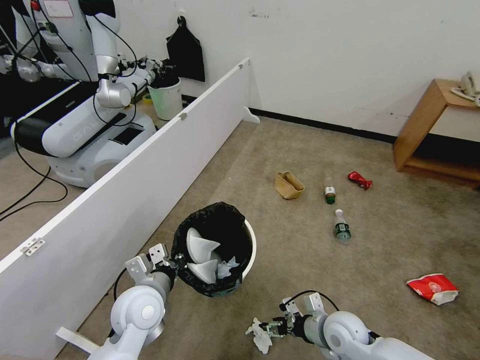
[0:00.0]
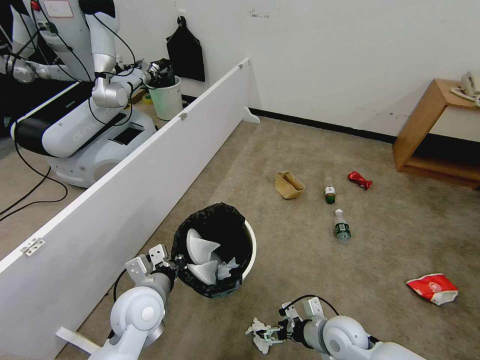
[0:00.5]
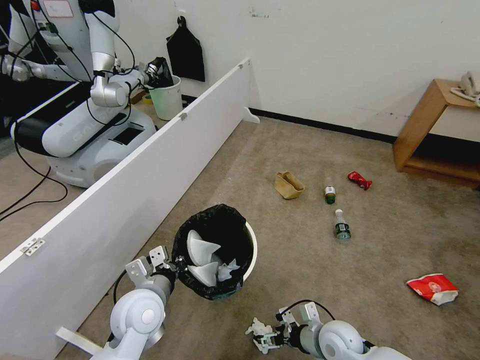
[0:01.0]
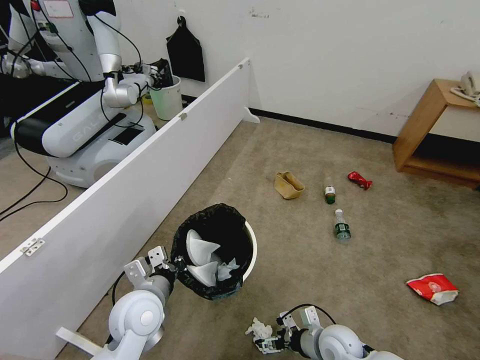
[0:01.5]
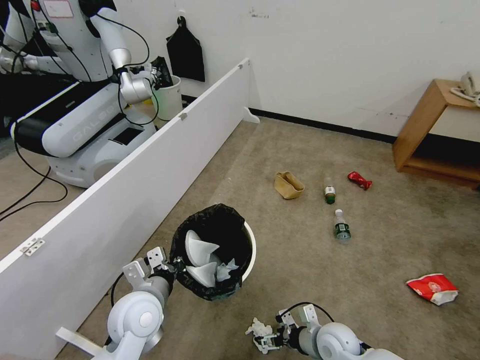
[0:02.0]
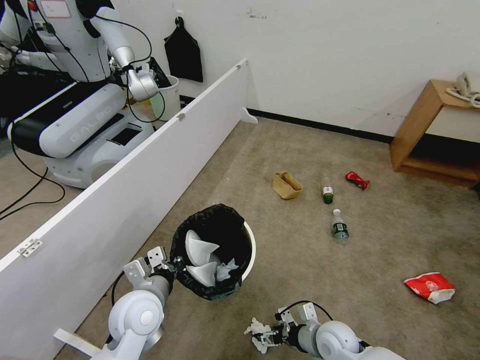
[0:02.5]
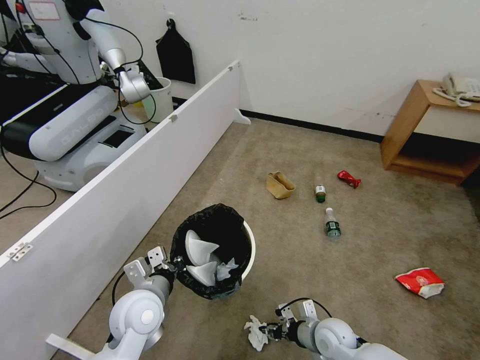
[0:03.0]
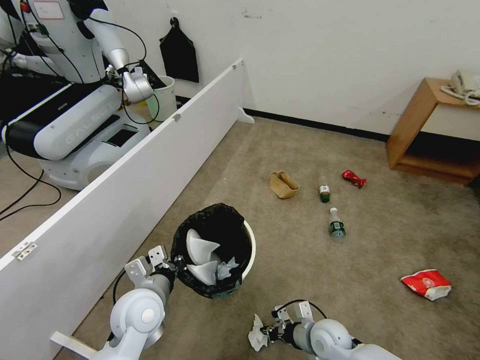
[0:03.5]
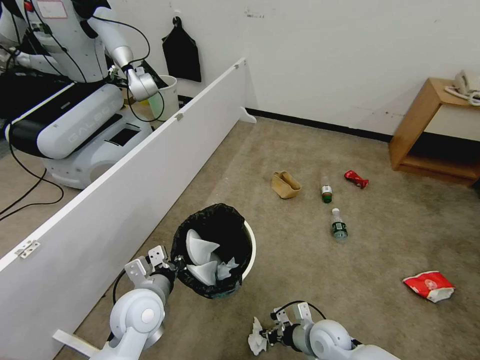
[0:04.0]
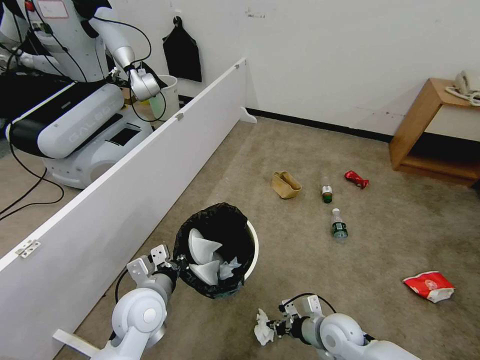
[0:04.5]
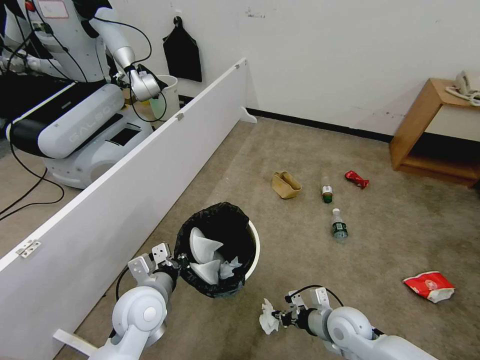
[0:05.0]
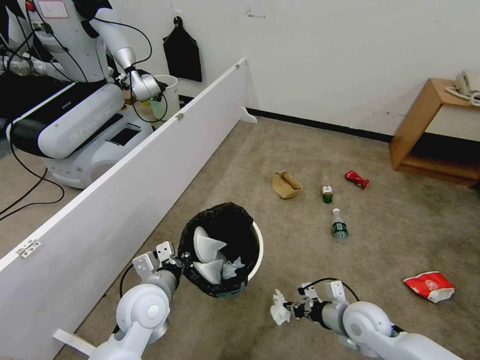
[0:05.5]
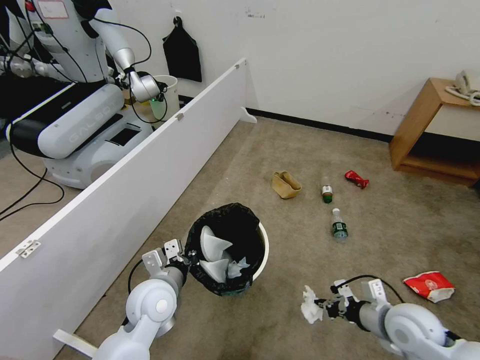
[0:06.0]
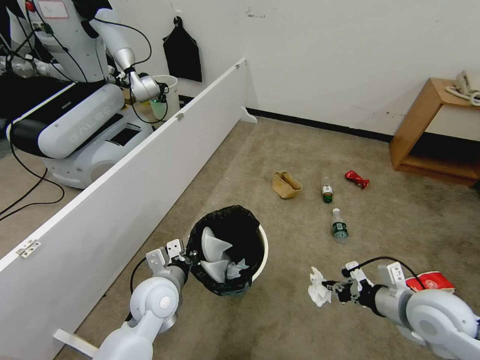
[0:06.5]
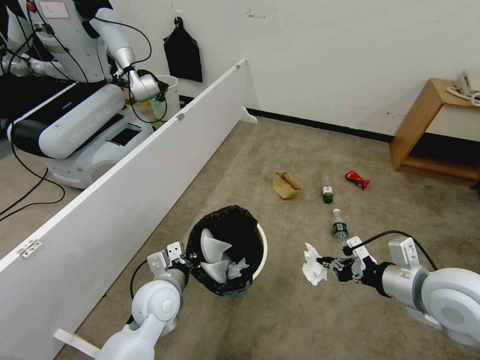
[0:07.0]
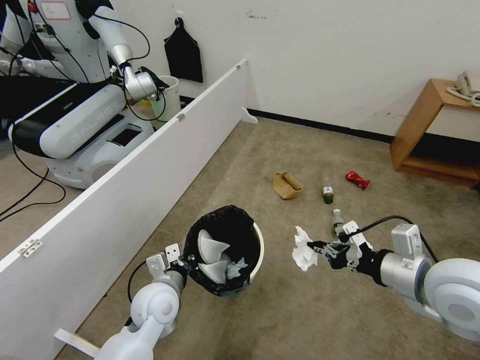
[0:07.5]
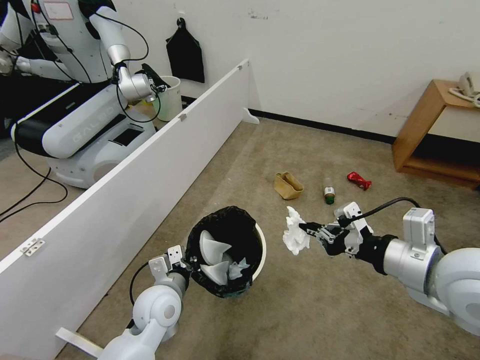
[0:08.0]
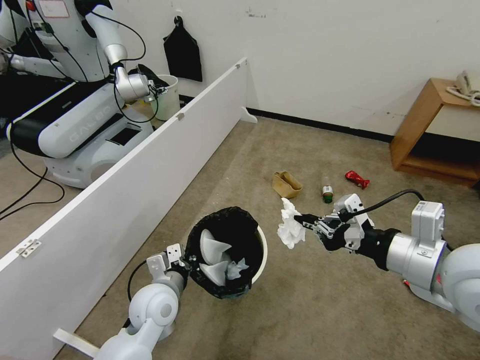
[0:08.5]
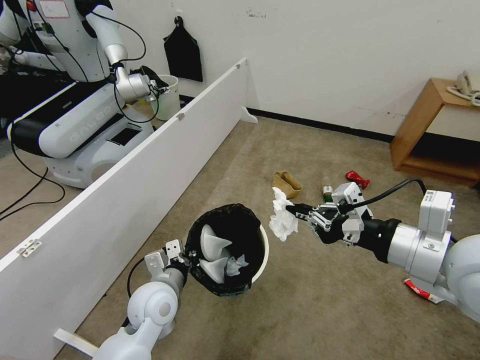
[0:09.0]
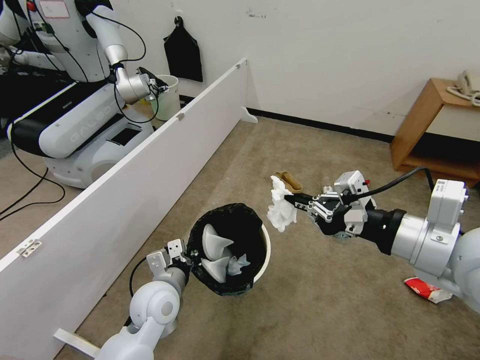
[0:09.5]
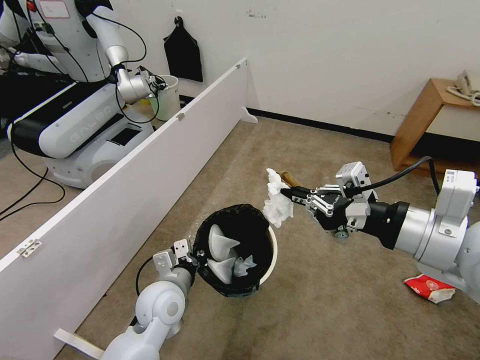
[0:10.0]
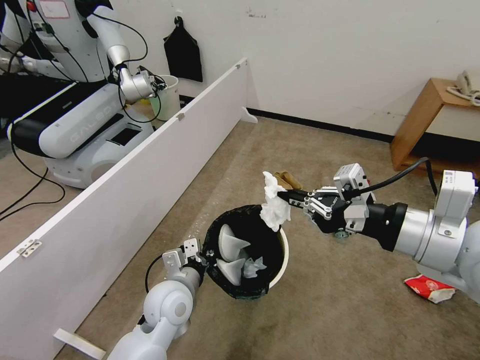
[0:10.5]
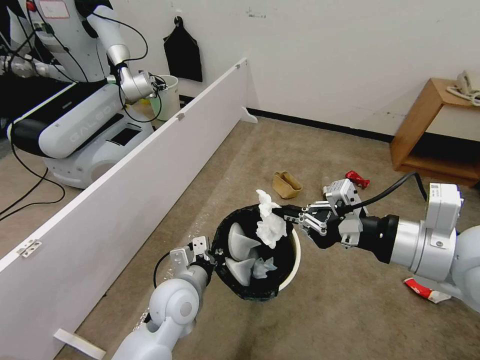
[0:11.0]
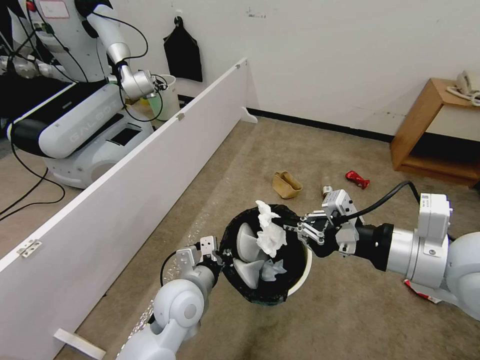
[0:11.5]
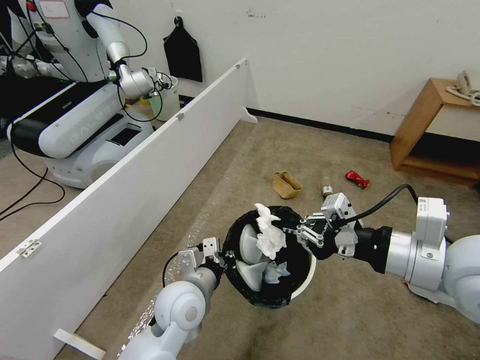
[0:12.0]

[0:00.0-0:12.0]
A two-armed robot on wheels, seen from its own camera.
Task of the whole recording: Pick up the trash bin, then pick up the garbage from the floor and place it into the trash bin.
0:00.0 to 0:02.0: The right gripper opens its fingers.
0:02.0 to 0:04.0: The right gripper closes.
0:04.0 to 0:06.0: The right gripper goes roughly 20 cm upward and to the right.
0:06.0 to 0:08.0: The right gripper shifts some 25 cm upward.
0:08.0 to 0:10.0: The right gripper goes roughly 5 cm upward.
0:10.0 to 0:12.0: The left gripper moves approximately 5 cm.

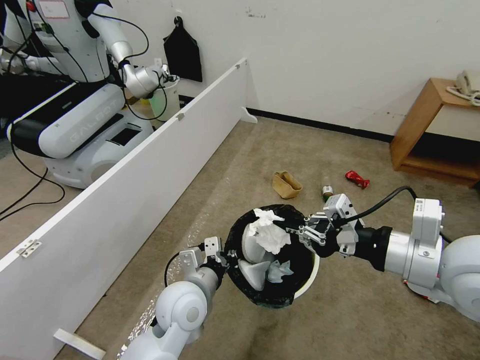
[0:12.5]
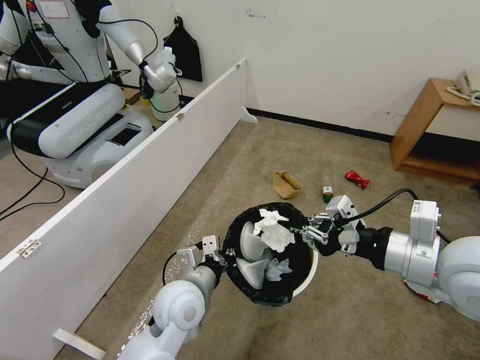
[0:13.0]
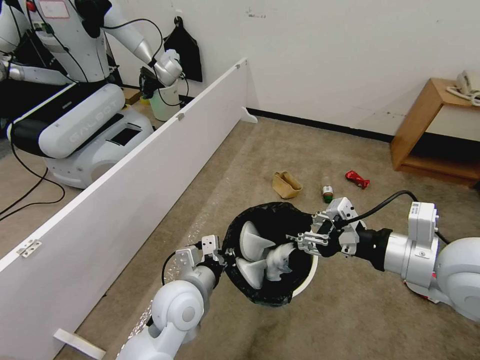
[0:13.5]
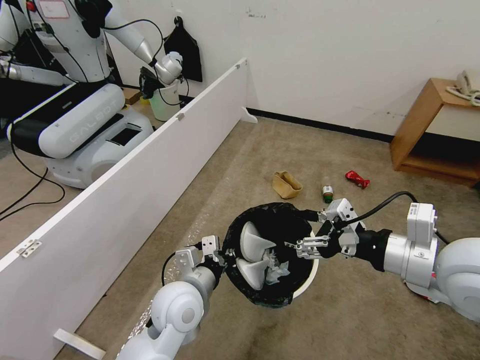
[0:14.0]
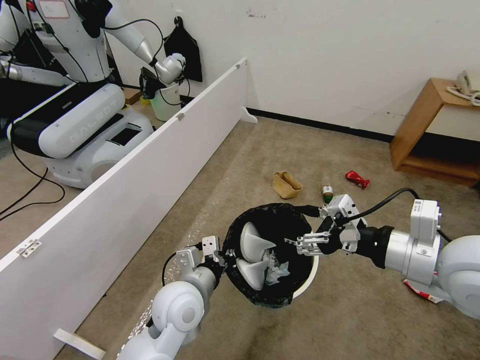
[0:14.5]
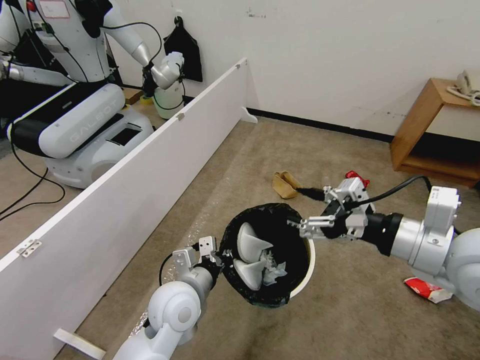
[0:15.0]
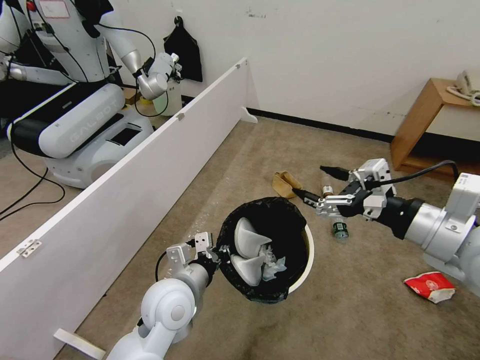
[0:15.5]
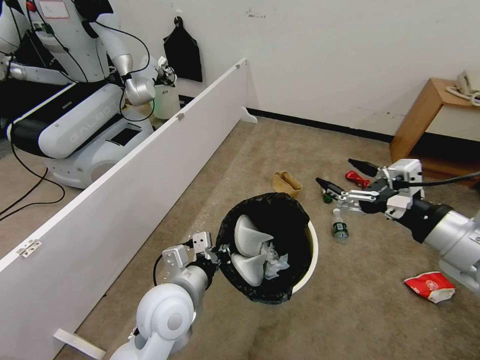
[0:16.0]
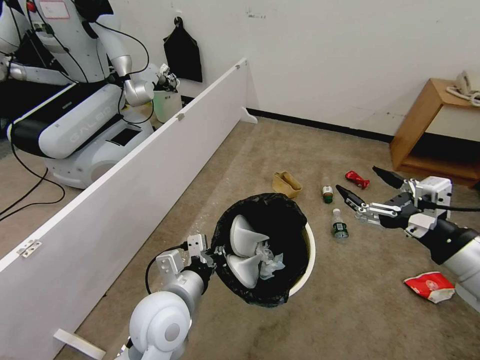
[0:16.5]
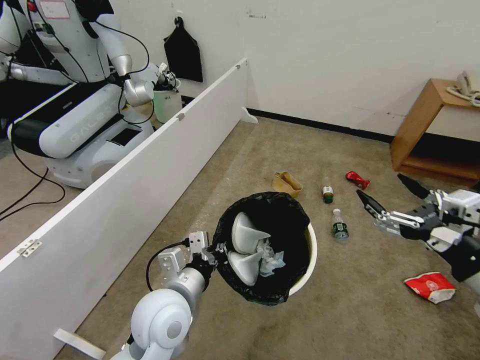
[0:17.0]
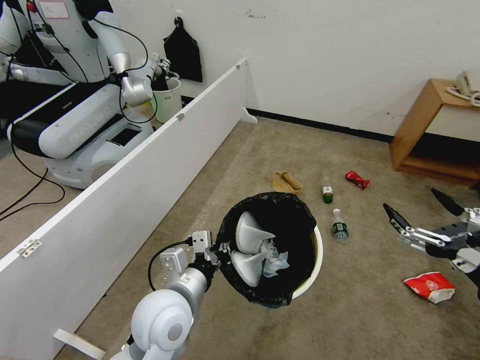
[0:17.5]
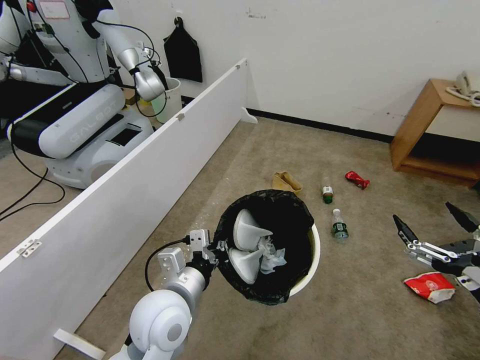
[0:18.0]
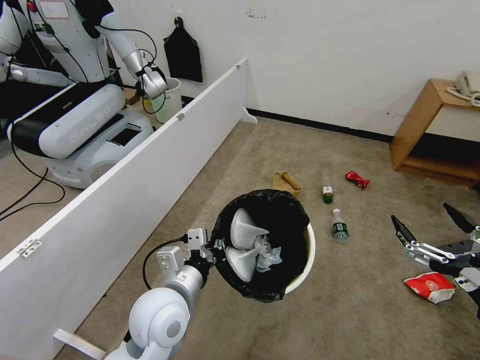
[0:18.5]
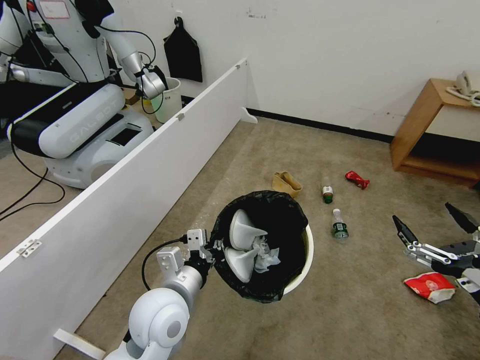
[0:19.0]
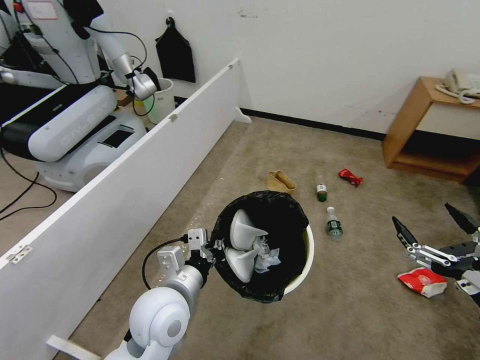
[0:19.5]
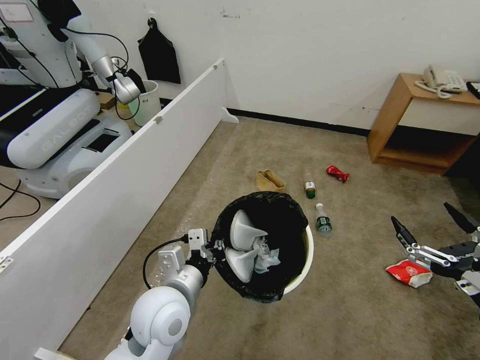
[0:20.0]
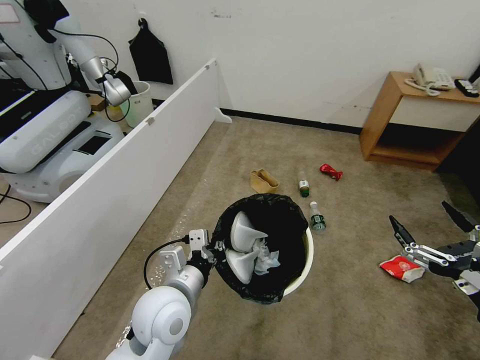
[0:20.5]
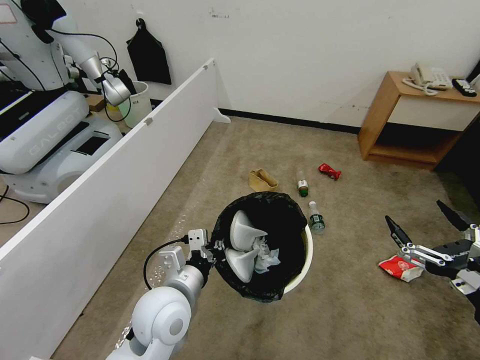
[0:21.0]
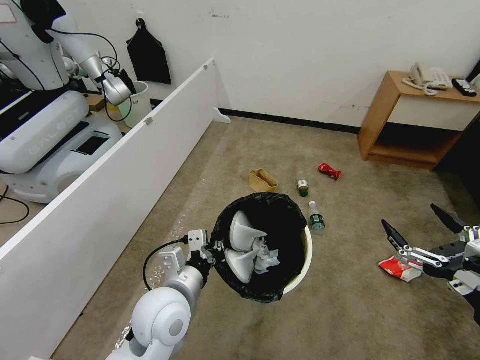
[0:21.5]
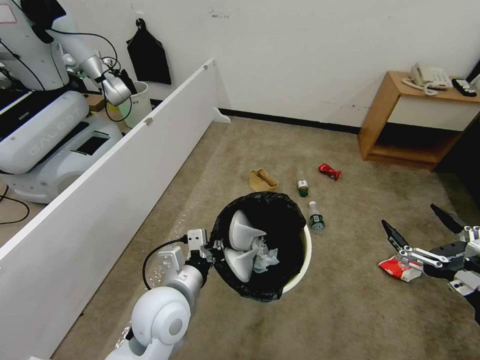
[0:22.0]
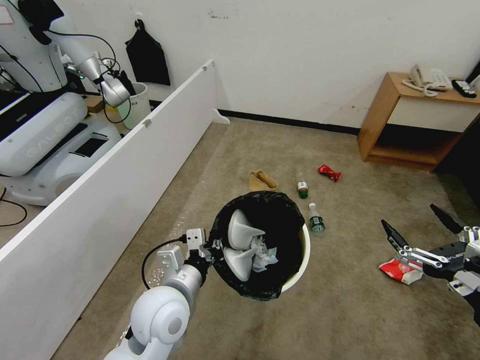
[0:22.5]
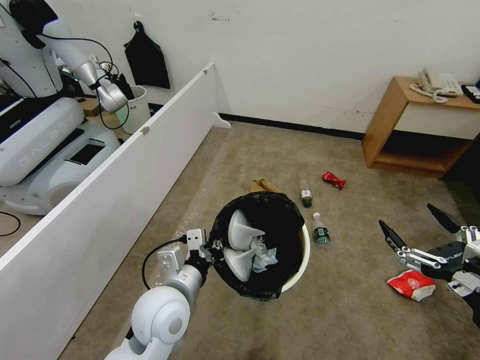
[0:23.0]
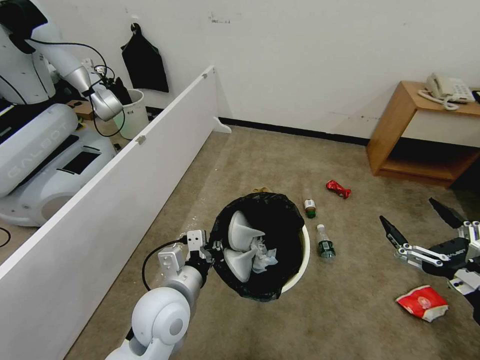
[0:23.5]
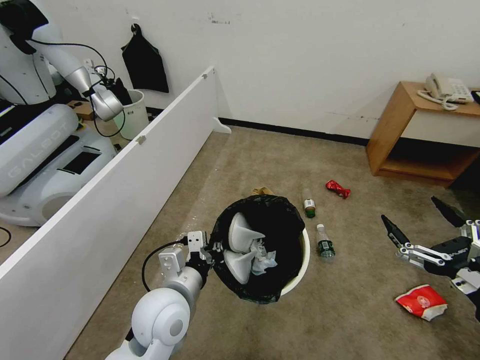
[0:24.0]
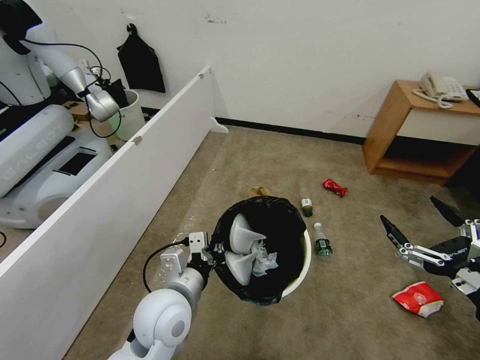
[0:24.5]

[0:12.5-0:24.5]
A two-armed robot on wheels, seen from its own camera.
Task of the whole recording: Pick up the trash bin, then pick up the garbage from the floor and place it into the trash bin.
0:12.5 to 0:14.5: The right gripper opens up.
0:14.5 to 0:16.5: The left gripper changes place by roughly 5 cm. The right gripper is displaced to the right and backward by some 5 cm.
0:16.5 to 0:18.5: The right gripper moves backward and downward, approximately 10 cm.
0:20.5 to 0:22.5: The two grippers keep their place.

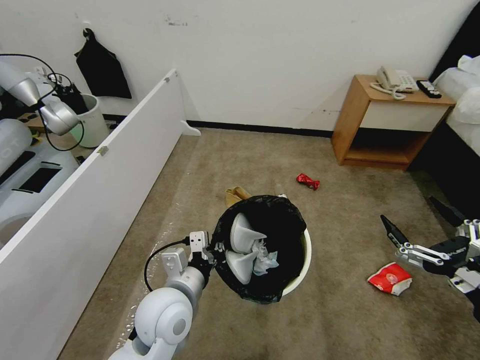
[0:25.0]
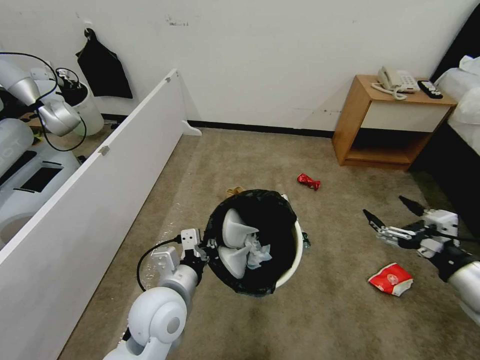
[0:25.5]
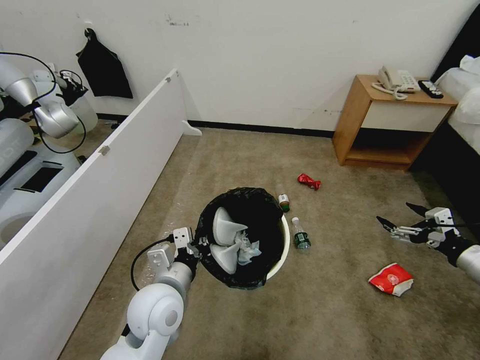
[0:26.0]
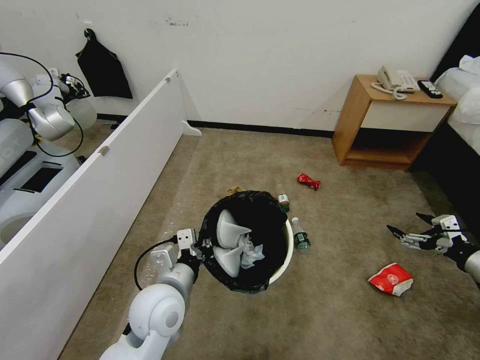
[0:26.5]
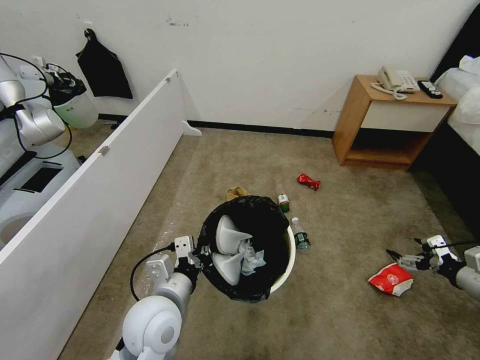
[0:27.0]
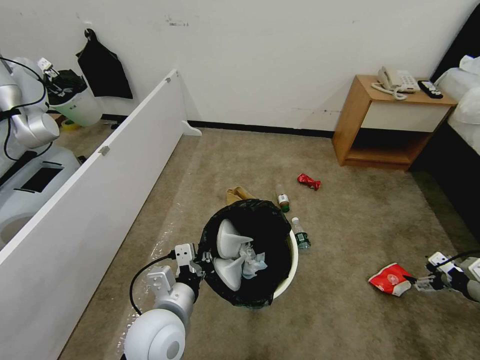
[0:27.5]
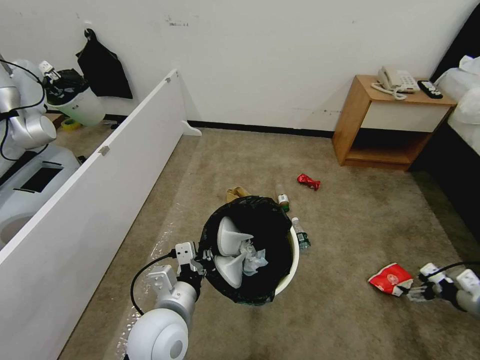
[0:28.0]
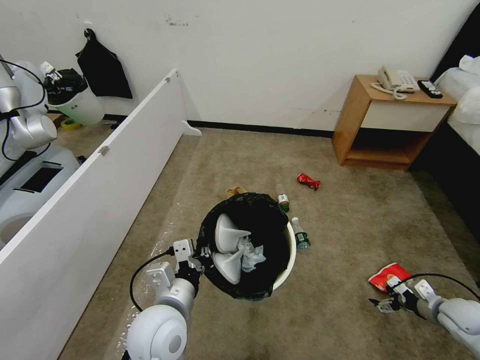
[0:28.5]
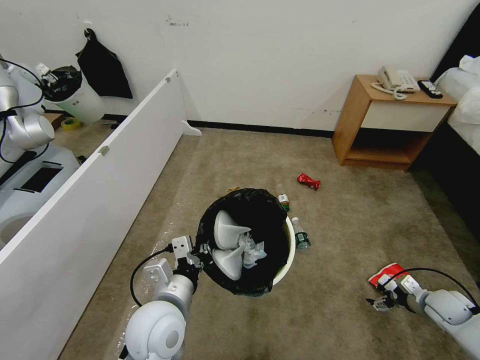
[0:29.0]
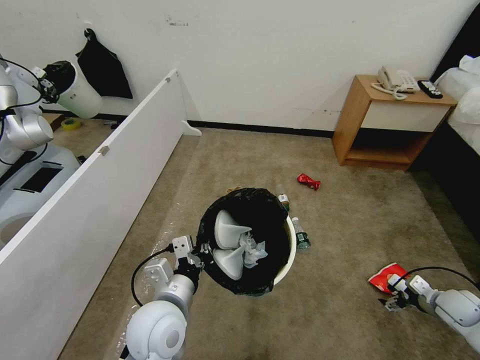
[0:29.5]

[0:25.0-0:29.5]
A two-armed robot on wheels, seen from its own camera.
Task of the whole recording: Pick up the trash bin, then pick up the garbage from the floor and place it into the trash bin.
0:25.0 to 0:27.0: The right gripper moves to the right, forward and downward, approximately 25 cm.
0:27.0 to 0:29.5: The right gripper moves downward, about 15 cm.
